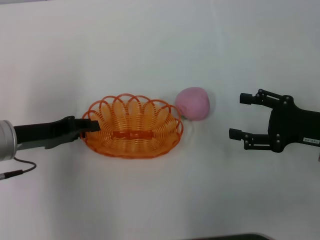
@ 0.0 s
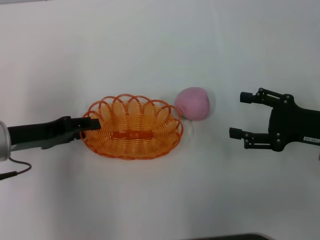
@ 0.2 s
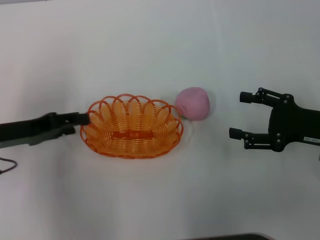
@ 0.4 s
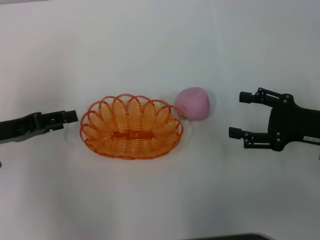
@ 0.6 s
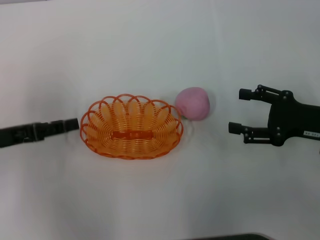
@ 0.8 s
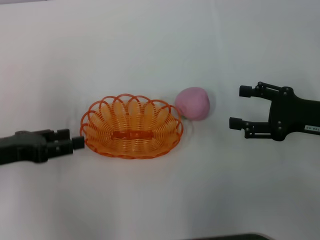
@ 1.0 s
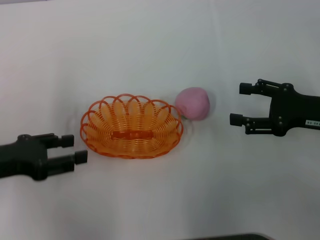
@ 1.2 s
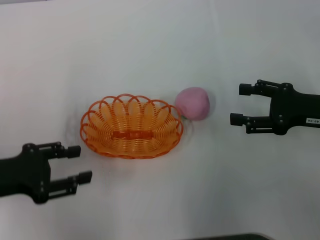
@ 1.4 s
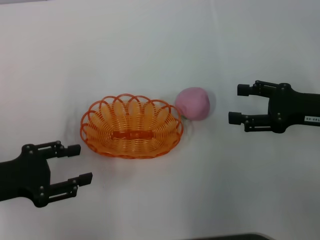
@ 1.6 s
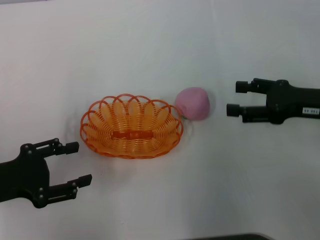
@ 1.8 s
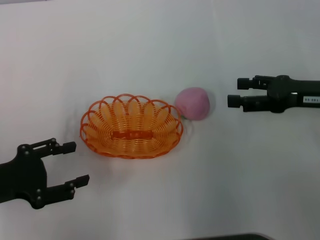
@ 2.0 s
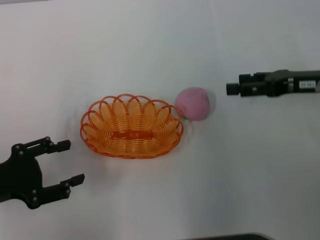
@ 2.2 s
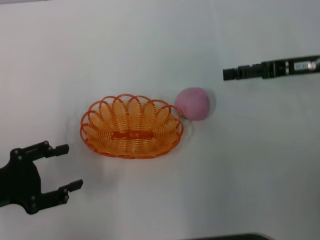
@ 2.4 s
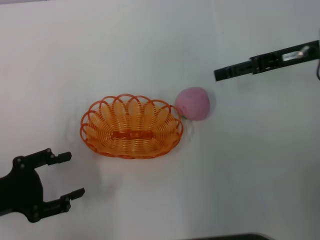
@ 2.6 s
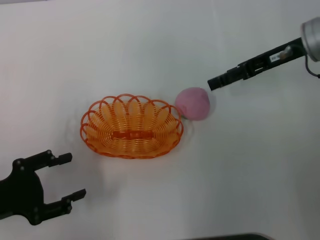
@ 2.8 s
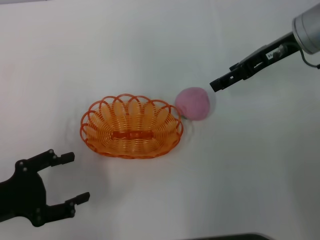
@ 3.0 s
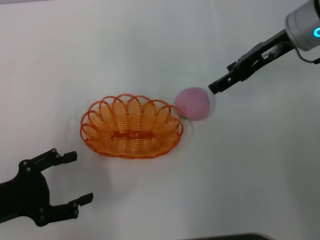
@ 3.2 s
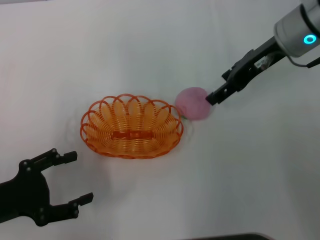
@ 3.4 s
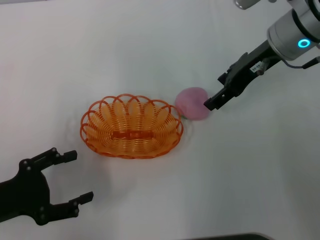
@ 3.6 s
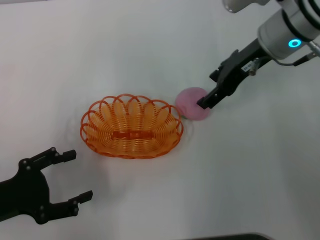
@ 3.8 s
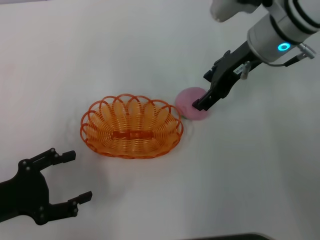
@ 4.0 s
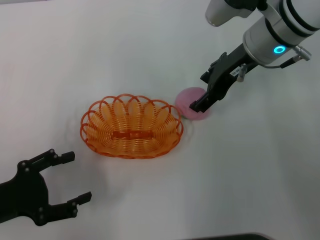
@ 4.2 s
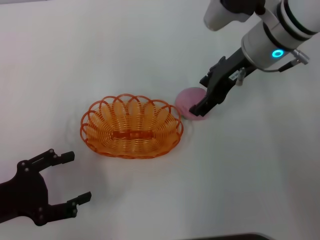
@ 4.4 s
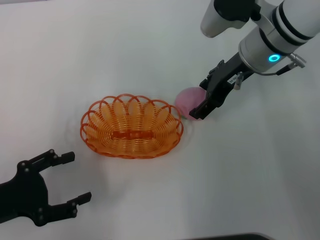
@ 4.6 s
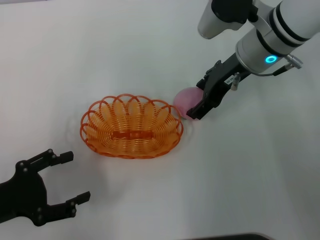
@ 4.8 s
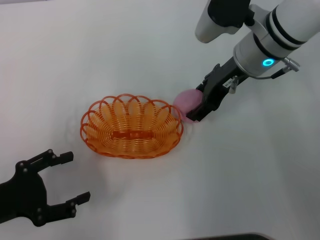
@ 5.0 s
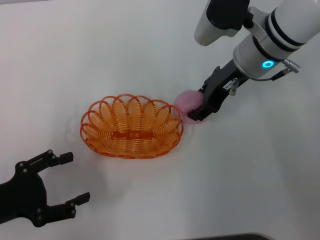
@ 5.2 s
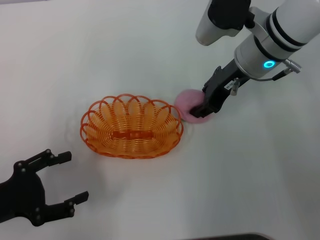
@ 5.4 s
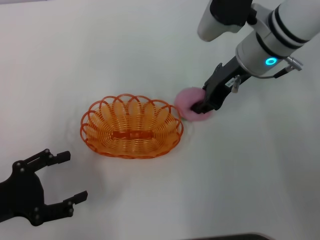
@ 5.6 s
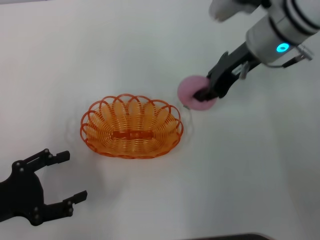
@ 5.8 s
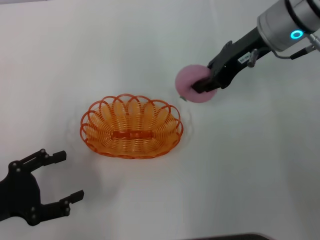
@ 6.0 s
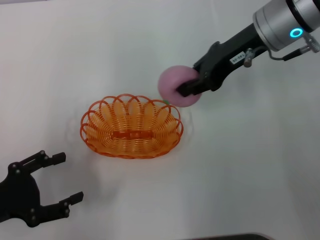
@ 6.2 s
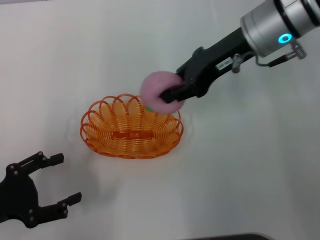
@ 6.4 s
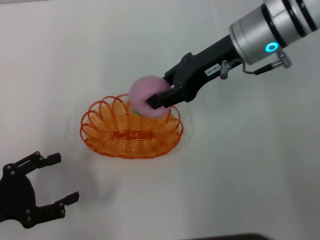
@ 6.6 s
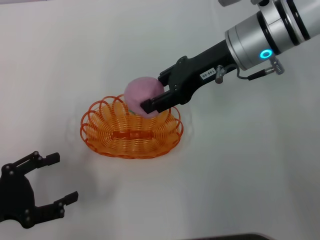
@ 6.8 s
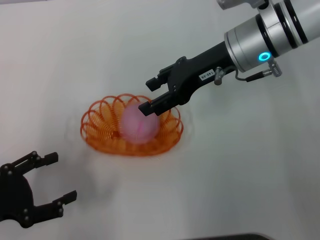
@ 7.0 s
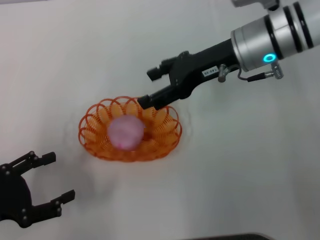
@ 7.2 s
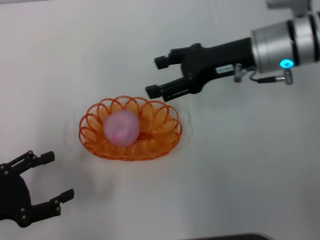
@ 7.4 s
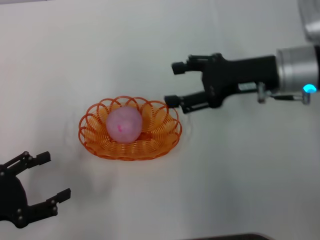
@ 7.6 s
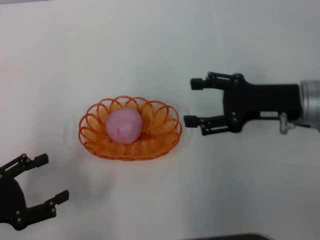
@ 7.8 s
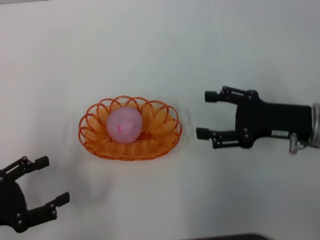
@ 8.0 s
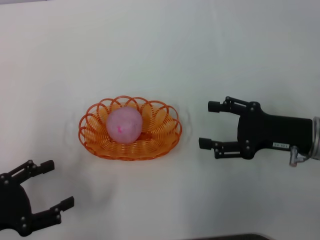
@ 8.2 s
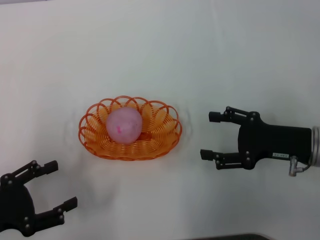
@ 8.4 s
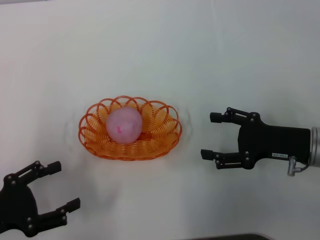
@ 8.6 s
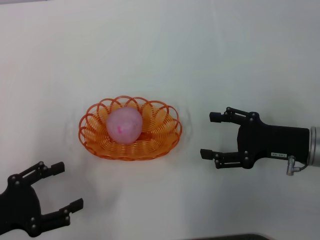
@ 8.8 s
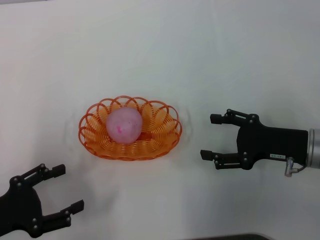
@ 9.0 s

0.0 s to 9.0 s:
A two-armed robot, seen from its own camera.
Step, 0.8 to 6.0 s: Pick up the peach with the right gripper.
Step, 6.2 to 7.4 s: Place the peach into the basket with the right gripper.
0.0 to 1.6 s: The left gripper travels backward by approximately 5 cm, and opens its fingers.
1.6 to 3.0 s: The right gripper goes approximately 15 cm forward, upward and to the left.
3.0 to 4.4 s: The right gripper travels to the left by roughly 5 cm.
4.4 to 6.0 s: The right gripper closes.
6.0 to 7.6 s: The right gripper shifts approximately 10 cm downward and backward, and opens.
7.6 to 9.0 s: The right gripper moves backward and downward, approximately 10 cm.
